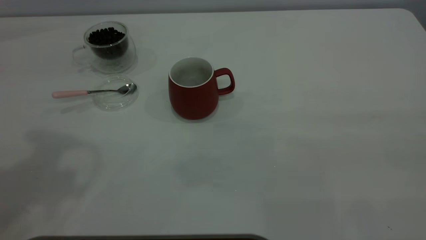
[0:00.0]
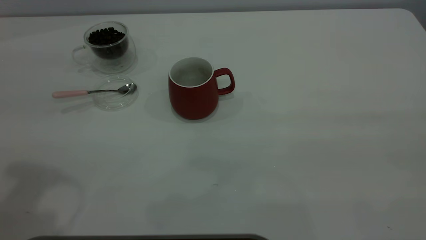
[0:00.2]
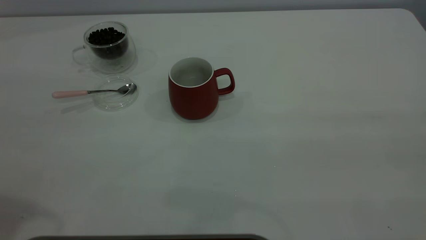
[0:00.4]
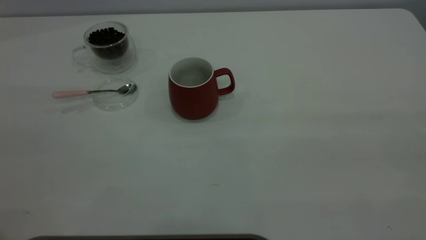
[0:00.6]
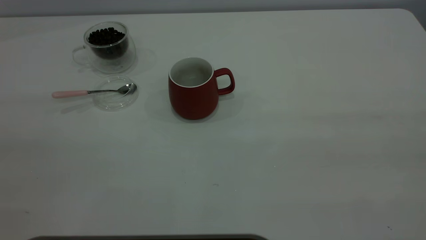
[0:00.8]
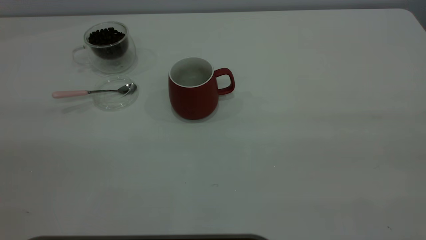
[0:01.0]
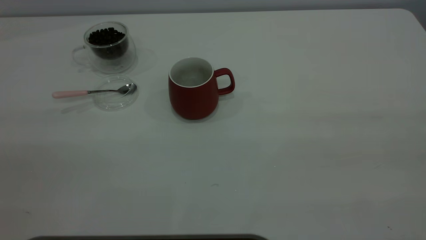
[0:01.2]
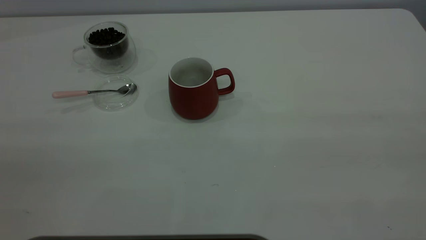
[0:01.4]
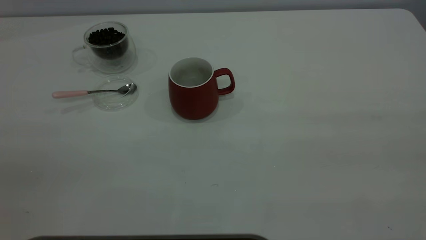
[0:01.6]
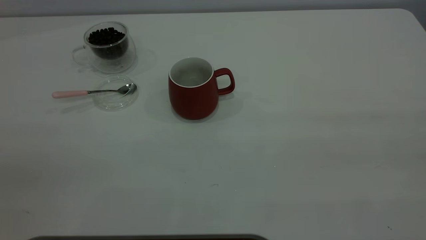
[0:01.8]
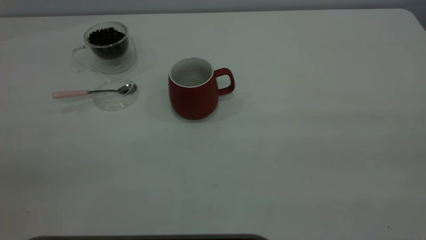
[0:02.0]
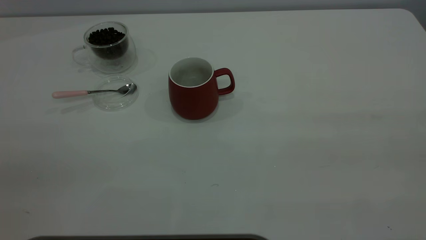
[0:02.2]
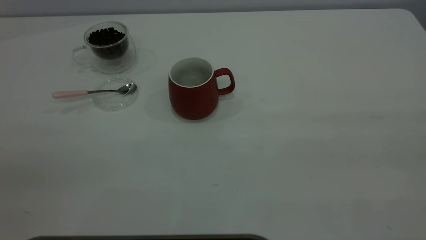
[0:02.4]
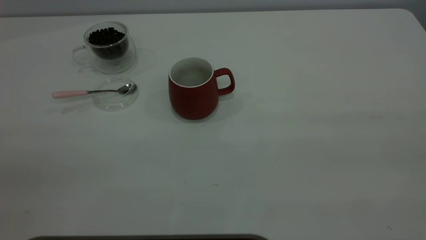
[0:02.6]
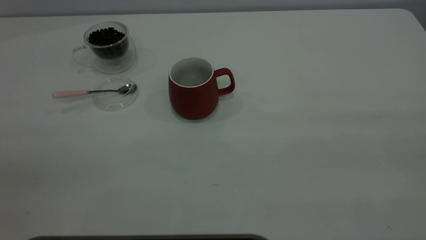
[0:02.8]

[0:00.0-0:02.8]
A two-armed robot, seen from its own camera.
Task of the whole recording: the right gripper place the red cup in the center of the table, the left gripper take the pink spoon from the cup lid and scoop out the coffee beans from the coffee cup and put them into the red cup, the left gripper put the spoon back into the cup lid.
0:01.4 to 0:02.8: Neither gripper changes place.

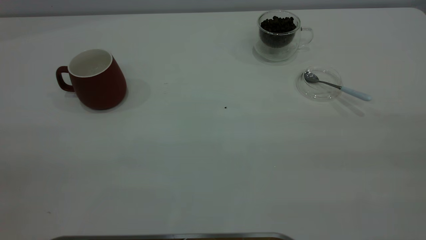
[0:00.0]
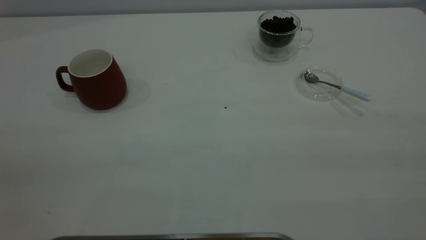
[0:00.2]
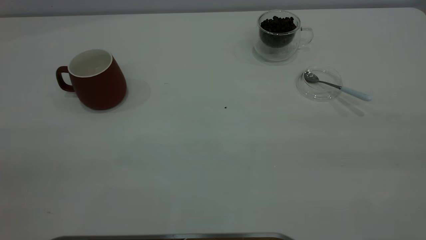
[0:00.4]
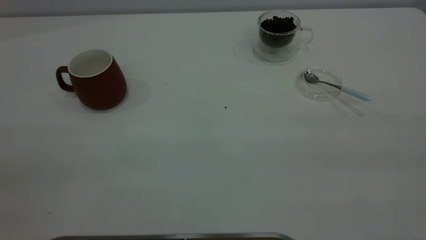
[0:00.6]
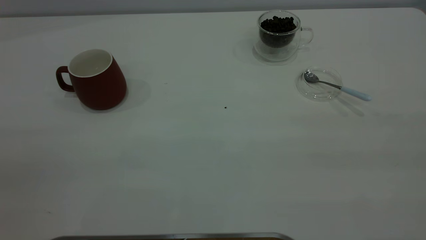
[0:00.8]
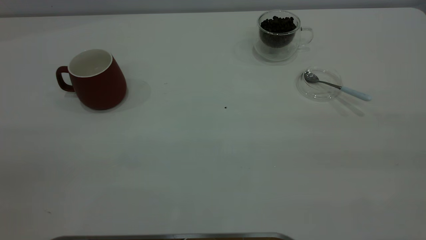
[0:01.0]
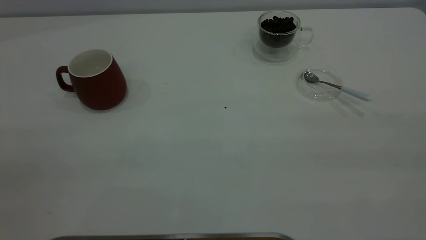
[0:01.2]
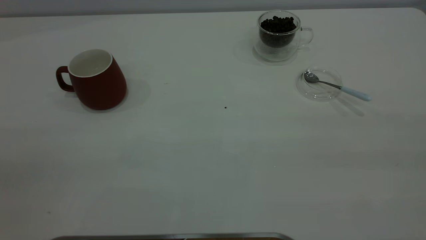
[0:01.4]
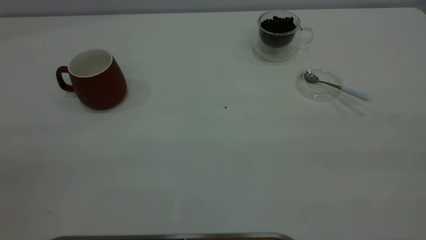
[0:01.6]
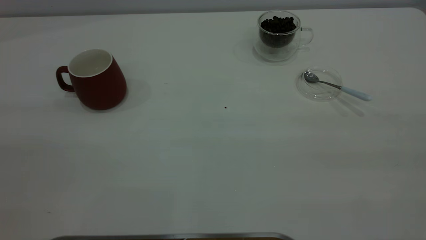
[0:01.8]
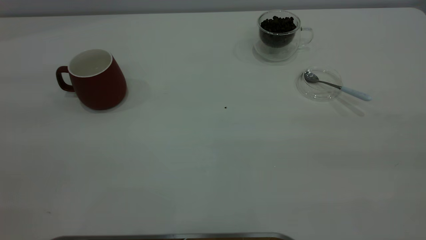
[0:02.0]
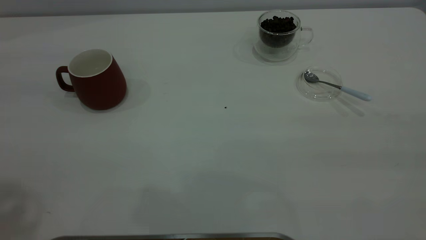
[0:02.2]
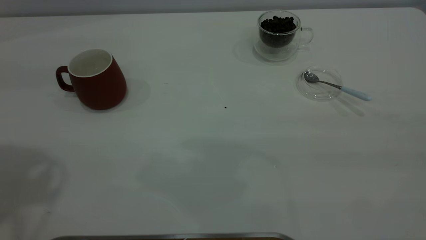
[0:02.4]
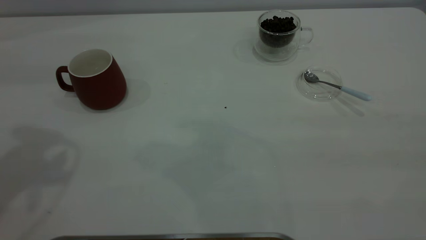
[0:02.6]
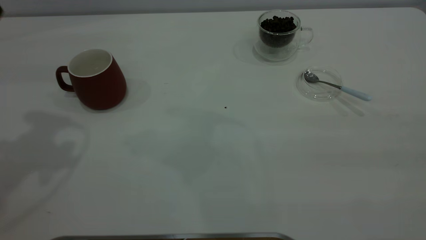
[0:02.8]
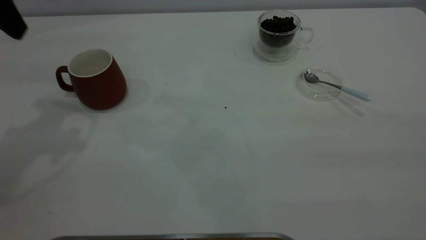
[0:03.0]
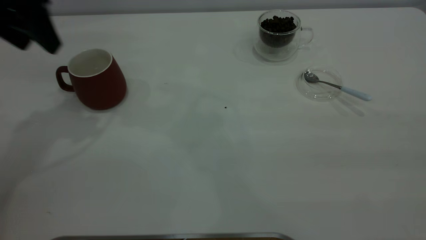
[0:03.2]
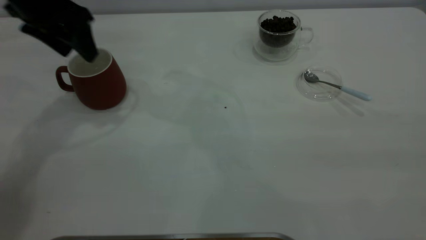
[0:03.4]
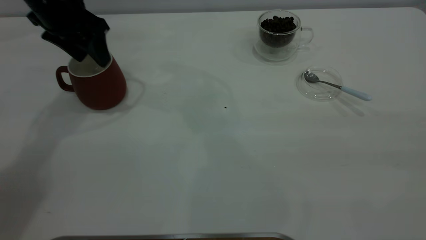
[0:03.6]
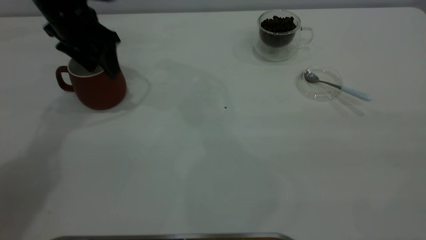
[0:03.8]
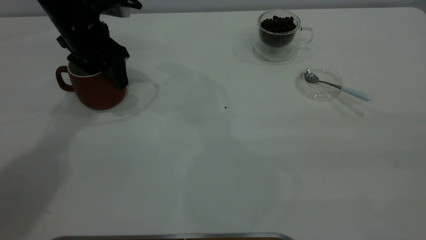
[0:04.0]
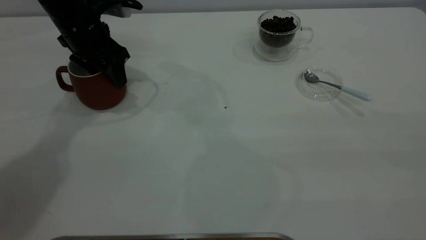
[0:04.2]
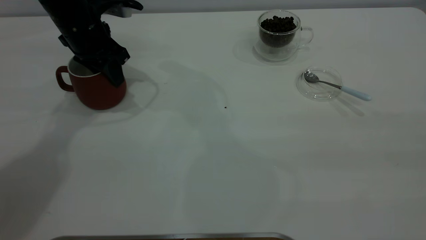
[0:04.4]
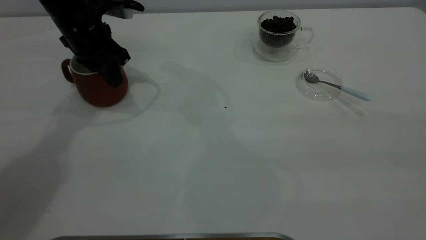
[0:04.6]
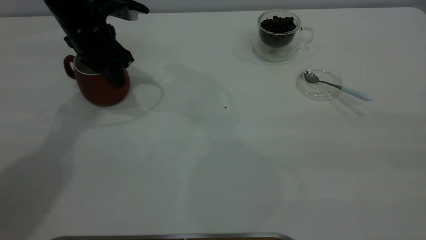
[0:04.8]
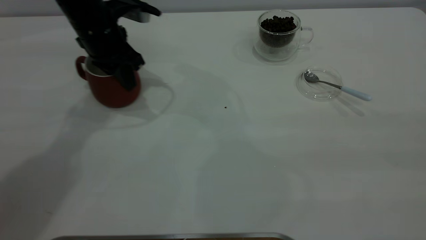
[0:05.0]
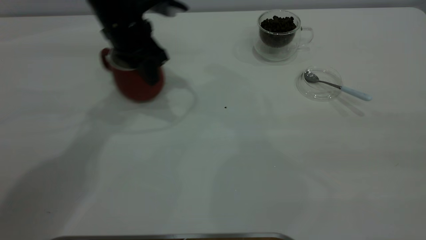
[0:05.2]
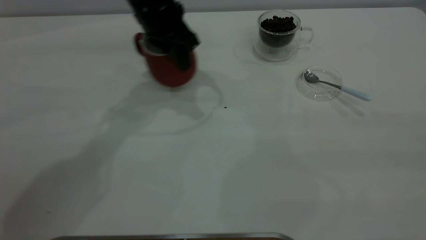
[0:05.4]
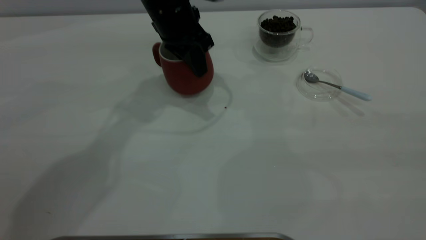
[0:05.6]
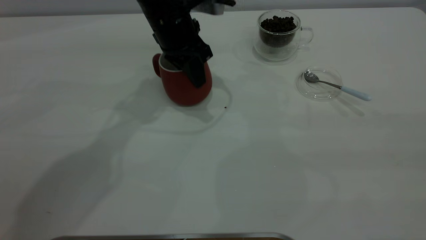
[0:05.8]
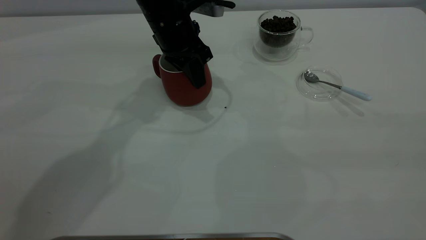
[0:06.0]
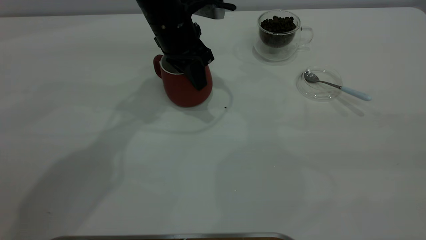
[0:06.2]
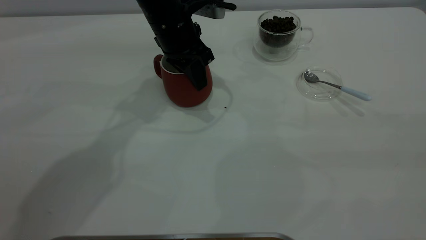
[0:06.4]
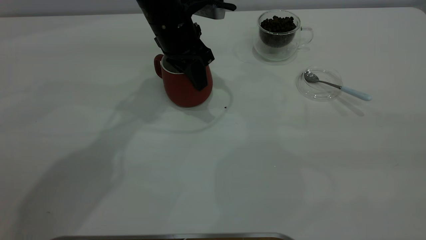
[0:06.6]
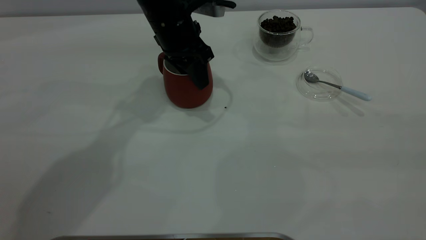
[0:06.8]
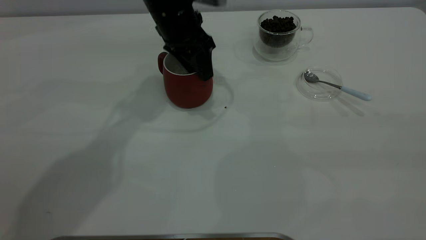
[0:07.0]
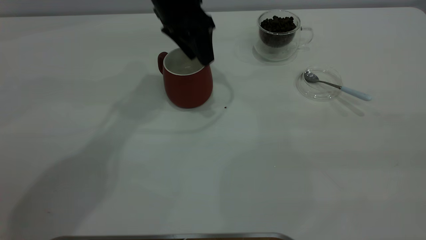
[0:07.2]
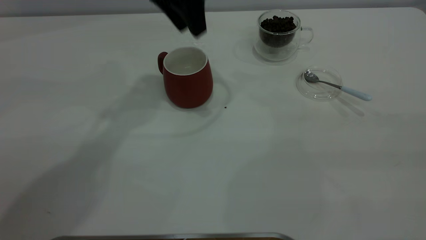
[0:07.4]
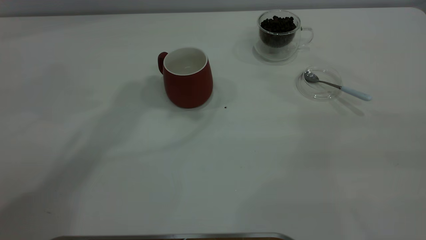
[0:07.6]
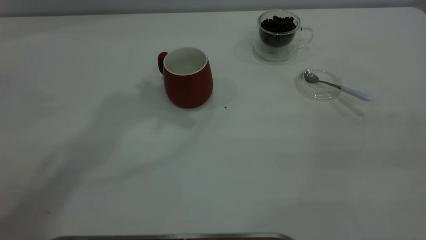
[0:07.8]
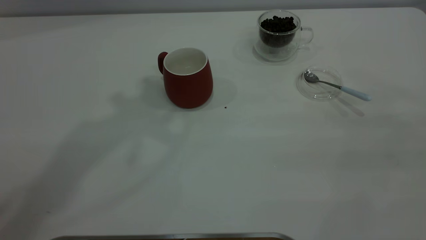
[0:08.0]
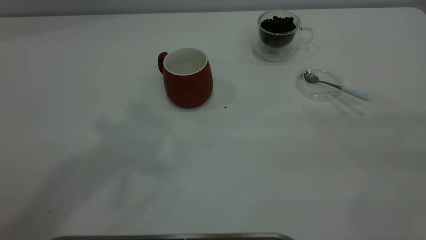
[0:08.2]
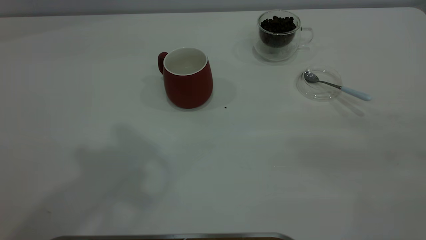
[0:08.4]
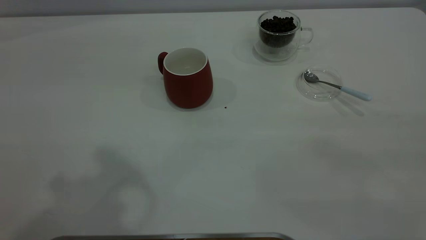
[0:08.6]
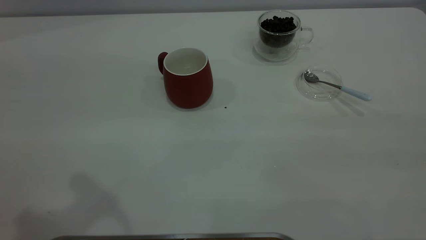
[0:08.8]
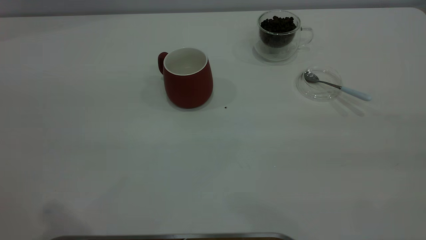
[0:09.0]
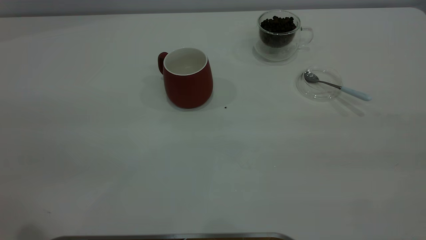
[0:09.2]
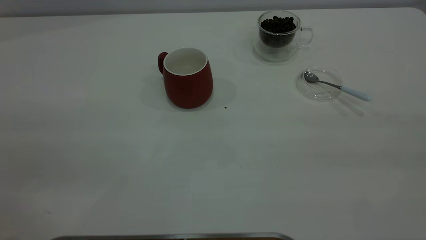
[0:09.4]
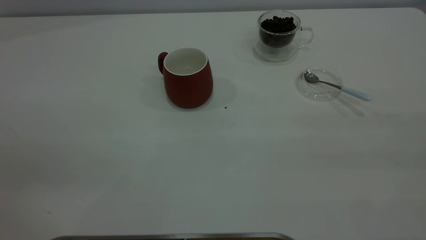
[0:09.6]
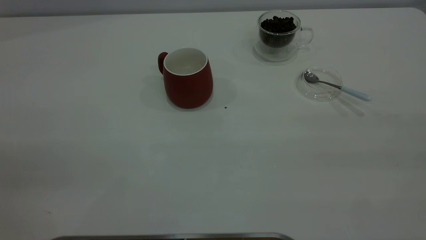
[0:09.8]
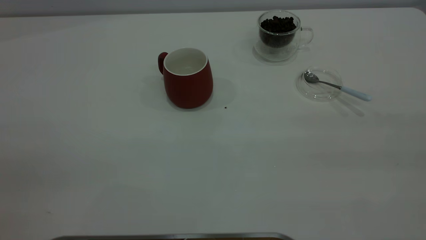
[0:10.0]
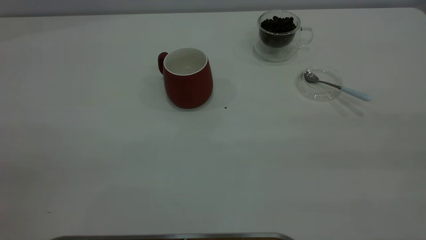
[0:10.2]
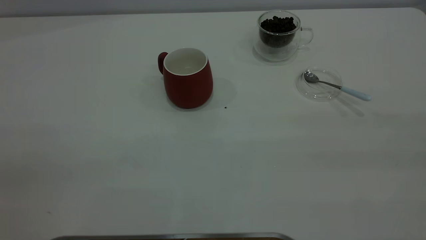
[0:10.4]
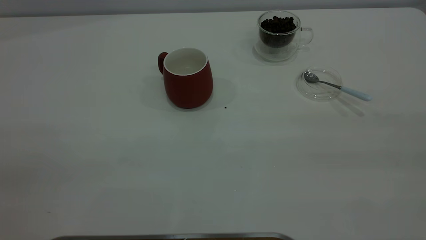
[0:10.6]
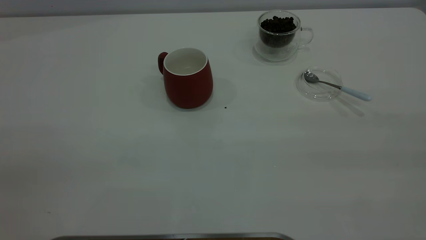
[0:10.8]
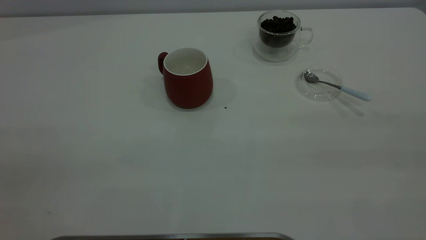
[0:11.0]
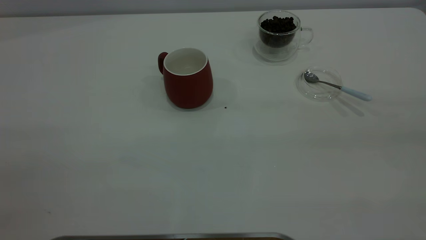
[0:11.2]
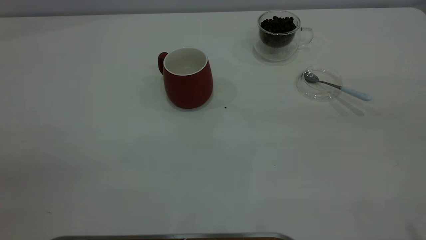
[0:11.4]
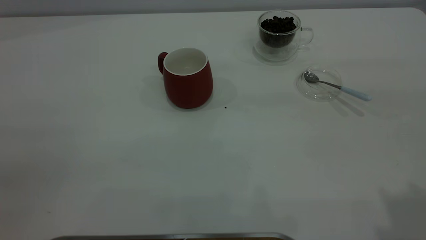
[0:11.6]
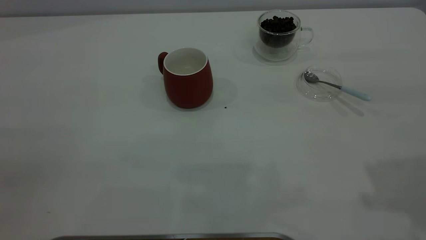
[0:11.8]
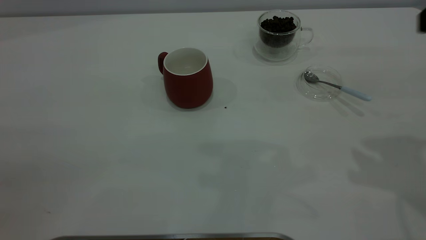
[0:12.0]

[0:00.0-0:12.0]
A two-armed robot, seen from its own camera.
Task of the whole recording: the left gripper place the red cup in the center of the table, the right gripper take the blue spoon from the cup lid and scoop out the coffee beans from the coffee cup and put them into the red cup, the right gripper put the spoon back into the cup lid.
Step, 0:00.0 to 0:07.2: Move the cup to the center of view.
0:00.0 to 0:01.6: Both grippers stay about where they are.
0:01.6 to 0:03.0: The left gripper travels forward by approximately 35 cm.
0:03.0 to 0:04.4: The left gripper is displaced downward, forward and to the right by about 20 cm, and closes up.
0:04.4 to 0:06.0: The left gripper travels to the right by roughly 15 cm.
0:06.0 to 0:07.6: The left gripper shifts some 20 cm upward, and opens.

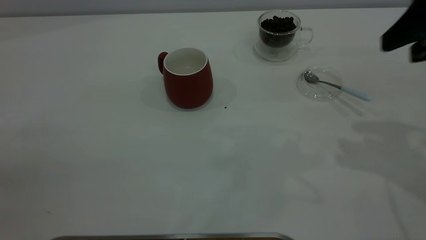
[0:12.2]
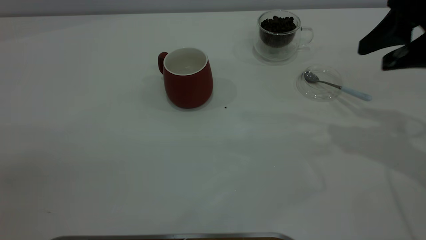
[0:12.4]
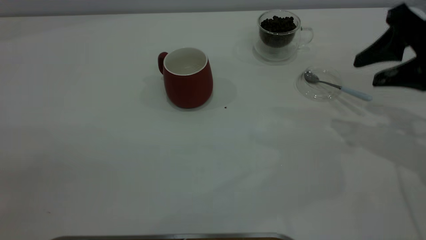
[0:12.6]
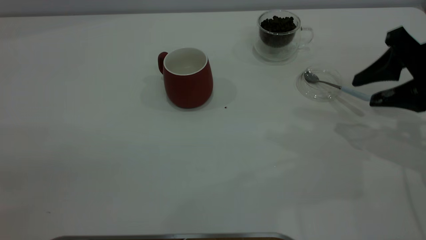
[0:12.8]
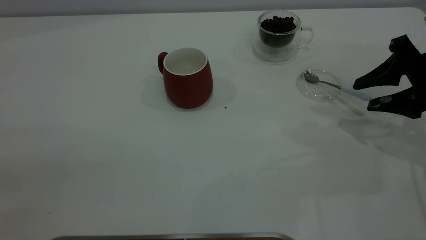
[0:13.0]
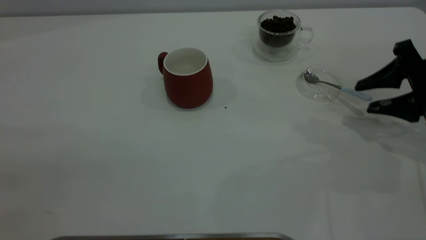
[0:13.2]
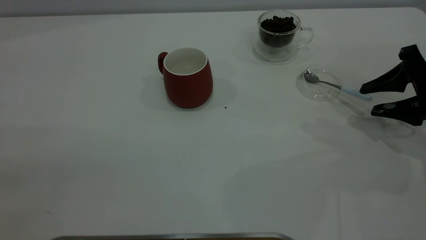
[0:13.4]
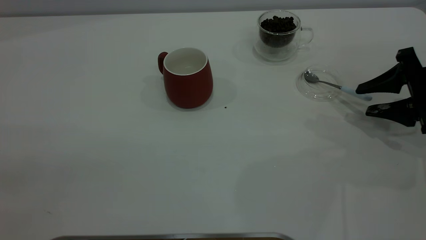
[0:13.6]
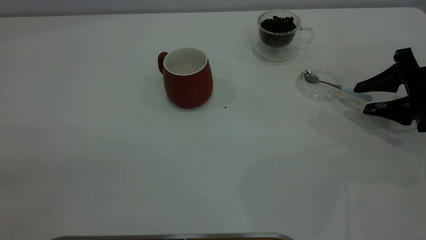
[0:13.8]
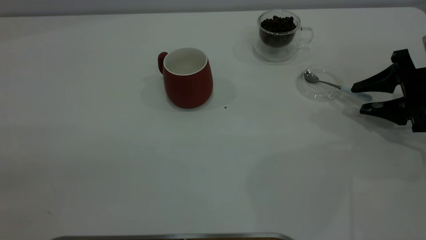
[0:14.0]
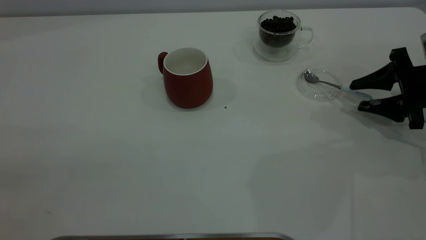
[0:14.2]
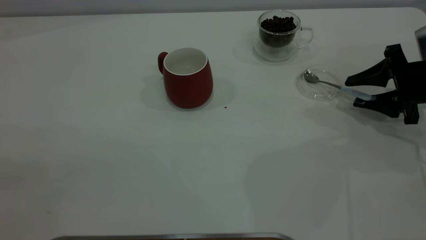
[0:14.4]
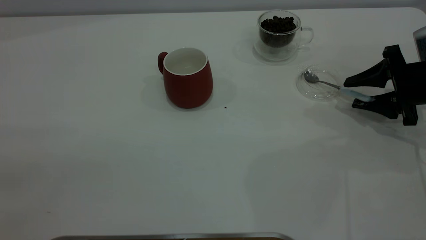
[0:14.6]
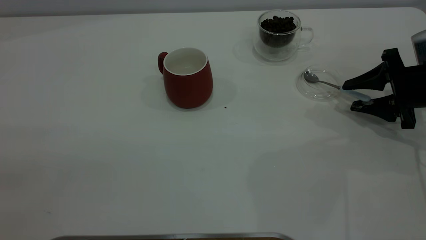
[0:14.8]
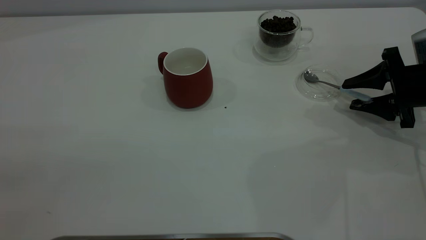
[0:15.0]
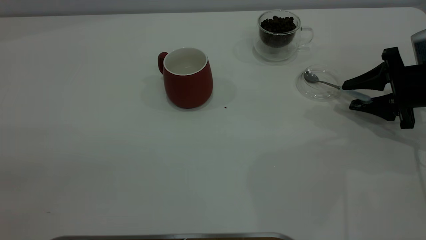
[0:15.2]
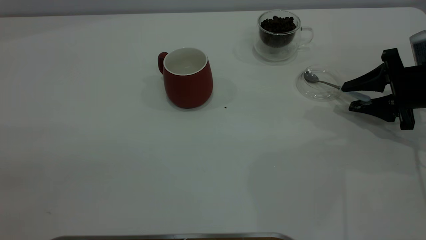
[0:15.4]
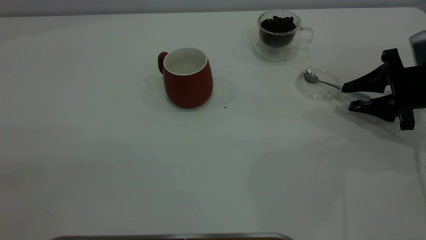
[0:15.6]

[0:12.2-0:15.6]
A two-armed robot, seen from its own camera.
Task of the whole recording: the left gripper place the red cup in the center of the table, the right gripper take the blue spoon from the cup lid and scoop out the coffee beans from the coffee cup and put them into the red cup, the right gripper put the spoon back into the cup lid.
0:12.2 to 0:13.8: The right gripper shifts some 20 cm downward.
0:13.8 to 0:15.6: There are only small adjustments of the grippers.
